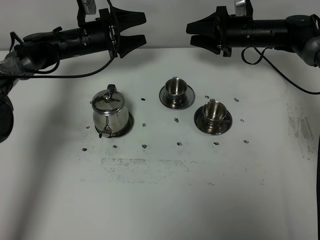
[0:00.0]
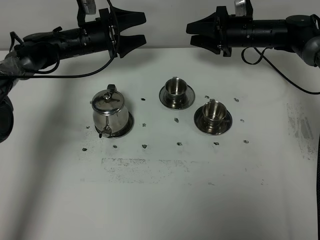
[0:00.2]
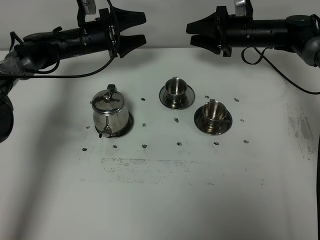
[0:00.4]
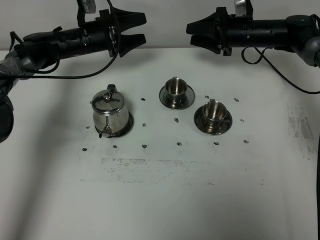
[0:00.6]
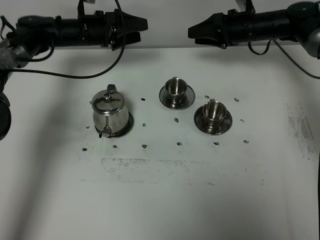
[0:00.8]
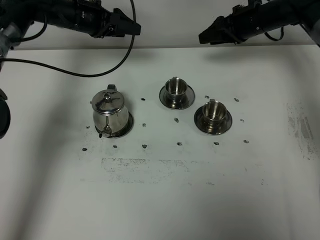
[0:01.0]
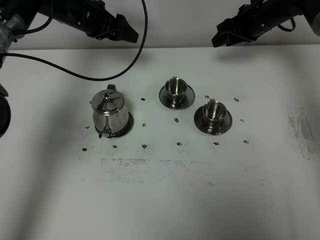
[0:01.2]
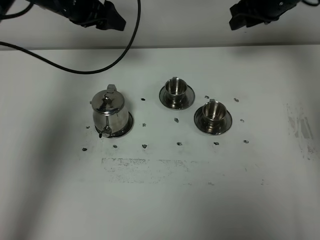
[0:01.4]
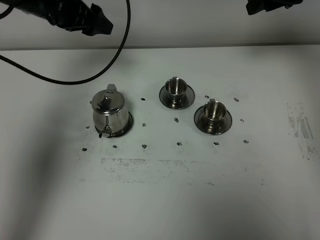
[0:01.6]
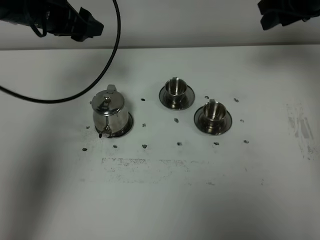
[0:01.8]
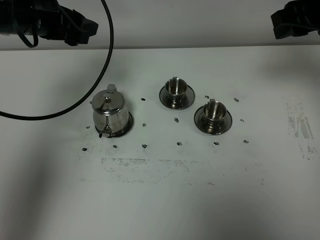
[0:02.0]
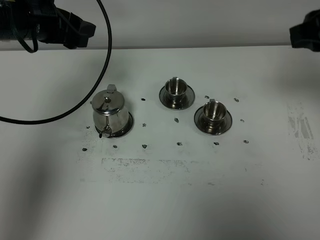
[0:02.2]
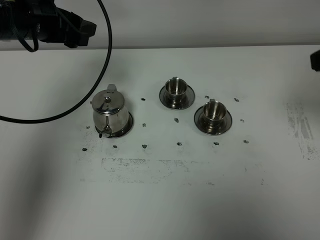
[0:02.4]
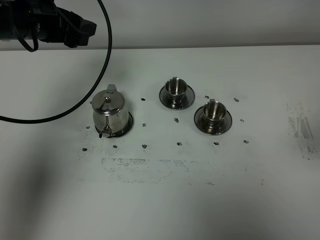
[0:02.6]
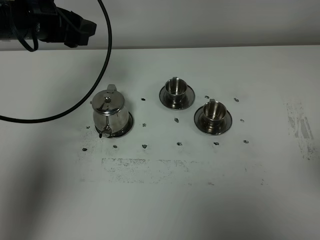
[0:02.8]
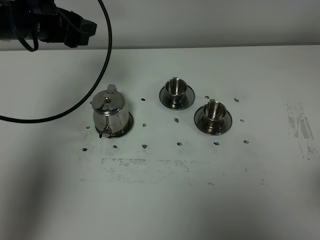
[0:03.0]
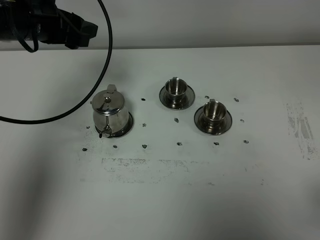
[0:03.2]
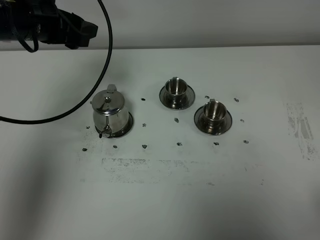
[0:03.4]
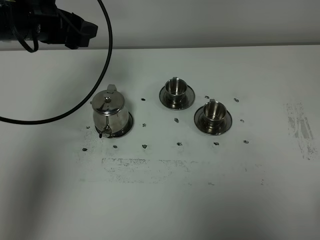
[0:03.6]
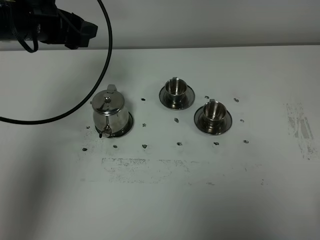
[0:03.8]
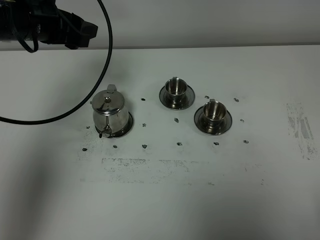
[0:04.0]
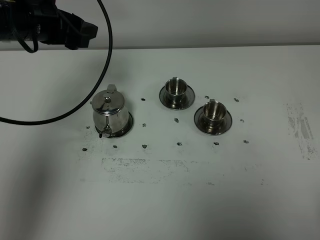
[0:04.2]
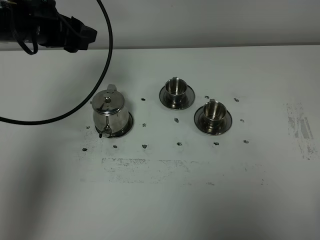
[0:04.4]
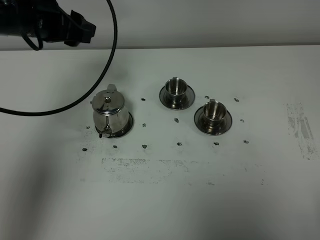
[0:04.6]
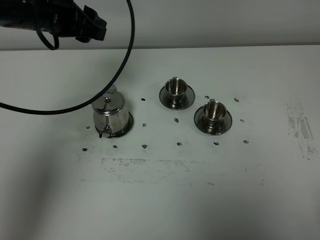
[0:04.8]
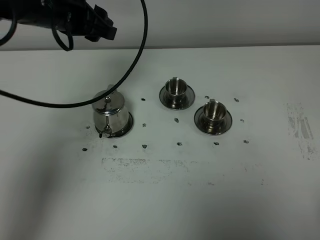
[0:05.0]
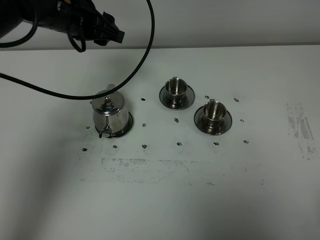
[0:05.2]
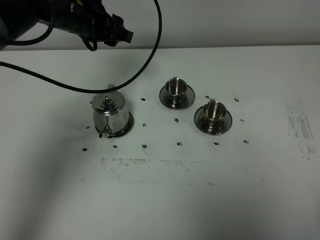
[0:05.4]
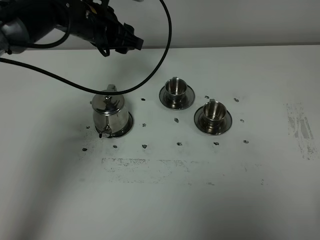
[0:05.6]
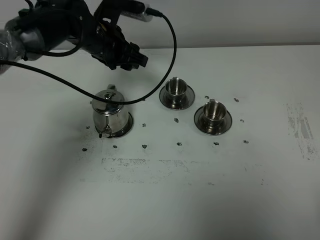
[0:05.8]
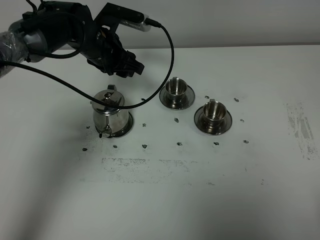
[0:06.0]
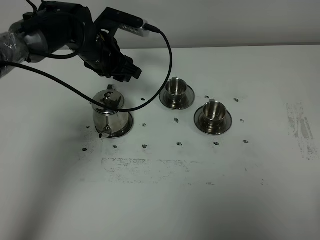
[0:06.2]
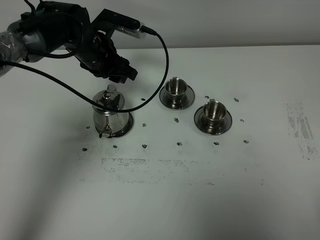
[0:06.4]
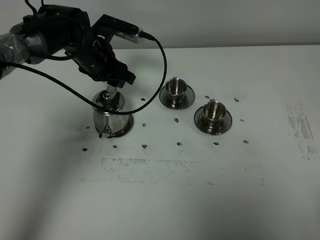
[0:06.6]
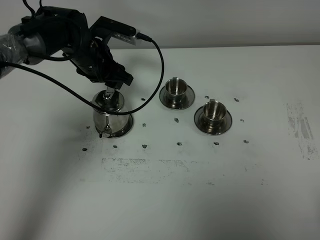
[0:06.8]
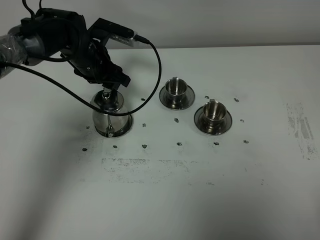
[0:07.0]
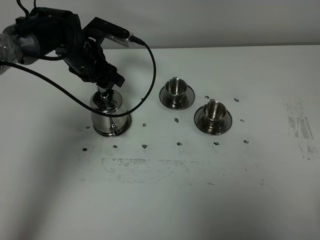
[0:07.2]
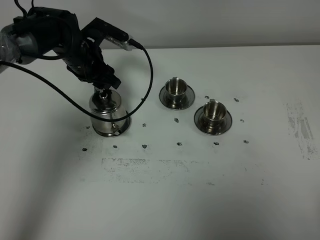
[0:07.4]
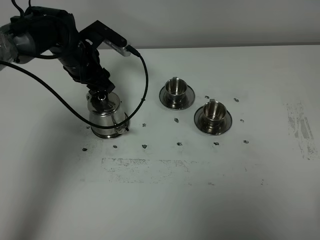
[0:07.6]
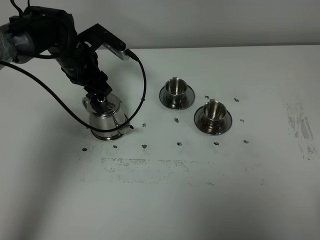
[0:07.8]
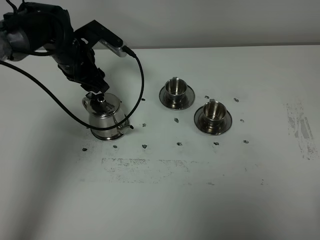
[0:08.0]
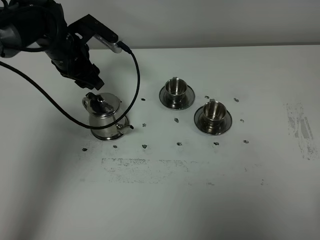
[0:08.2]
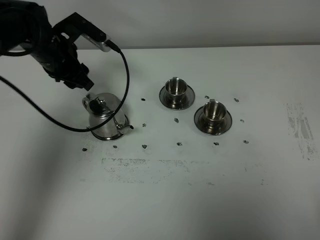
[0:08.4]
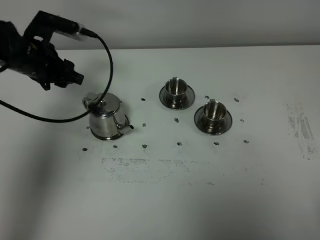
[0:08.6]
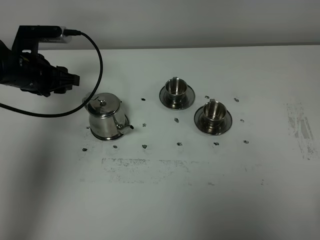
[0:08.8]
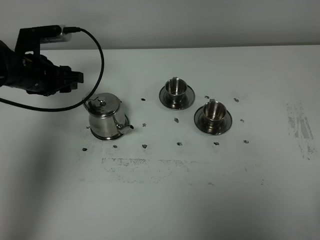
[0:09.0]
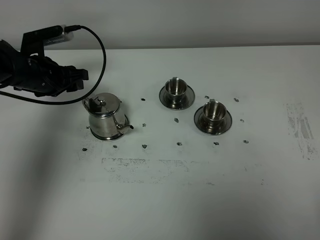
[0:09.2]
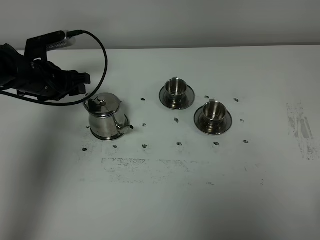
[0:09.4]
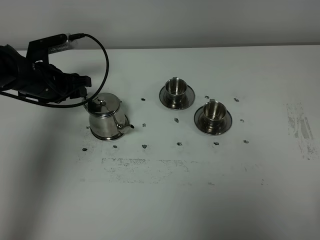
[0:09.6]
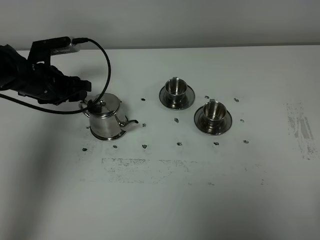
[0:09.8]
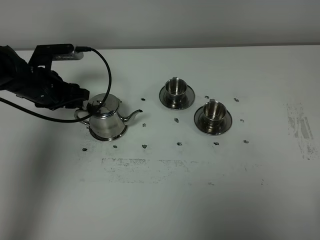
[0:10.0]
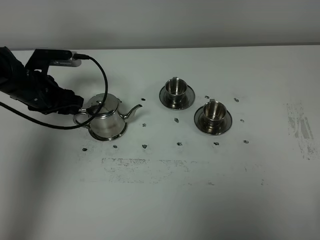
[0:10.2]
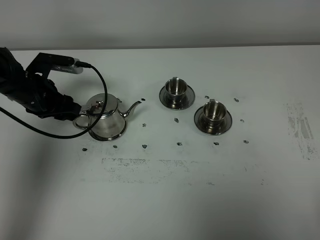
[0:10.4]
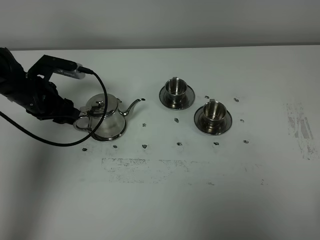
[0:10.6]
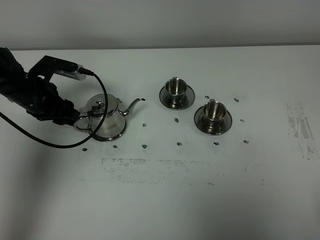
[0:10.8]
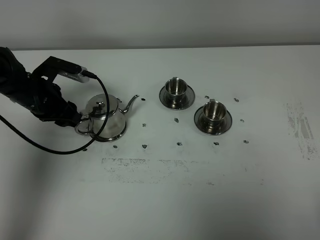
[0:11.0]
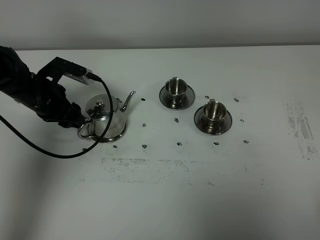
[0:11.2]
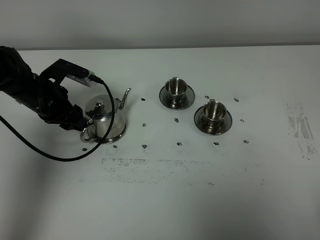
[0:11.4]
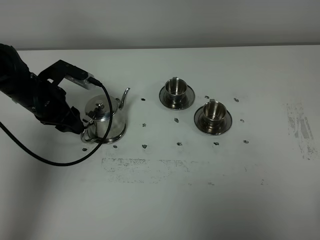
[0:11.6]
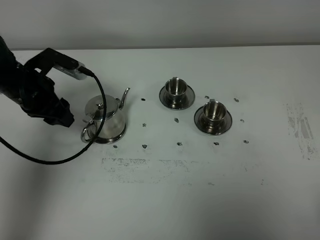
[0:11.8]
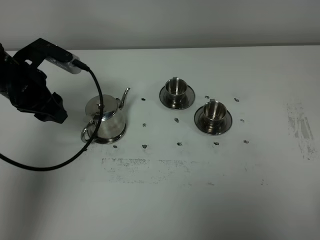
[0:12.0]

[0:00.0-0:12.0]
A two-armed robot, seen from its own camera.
Task of the whole recording: grasp the stainless steel teapot and pour the tea into the two stainless steel teacups one by one, put the stainless steel teapot back in its original place.
0:00.0 to 0:01.6: The two grippers go about 20 cm upward and backward.
0:01.6 to 0:03.0: The right gripper shifts approximately 40 cm backward, and closes, while the left gripper is displaced backward by approximately 5 cm.
0:04.4 to 0:06.0: The left gripper moves downward, to the right and forward, roughly 15 cm.
0:06.0 to 0:07.6: The left gripper shifts by some 5 cm.
0:07.6 to 0:09.0: The left gripper moves to the left and backward, approximately 10 cm.
0:10.4 to 0:12.0: The left gripper is displaced upward by roughly 10 cm.

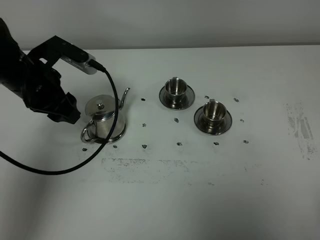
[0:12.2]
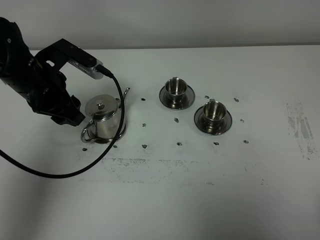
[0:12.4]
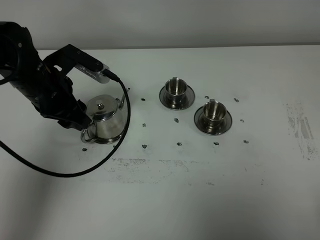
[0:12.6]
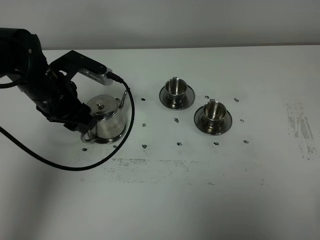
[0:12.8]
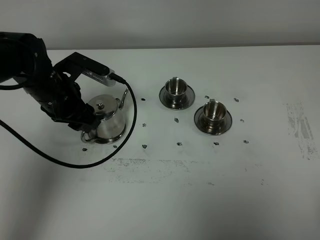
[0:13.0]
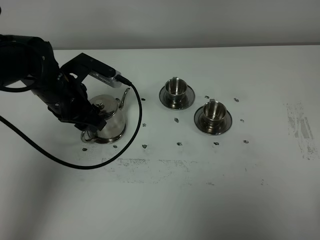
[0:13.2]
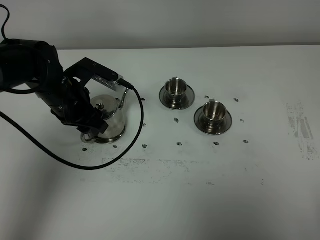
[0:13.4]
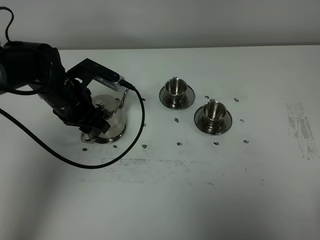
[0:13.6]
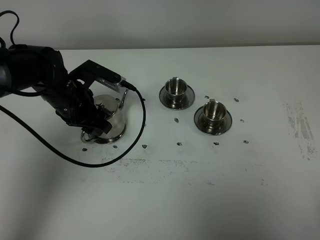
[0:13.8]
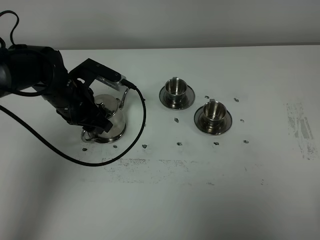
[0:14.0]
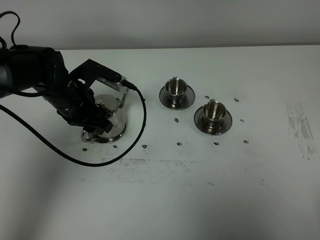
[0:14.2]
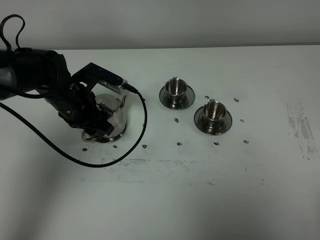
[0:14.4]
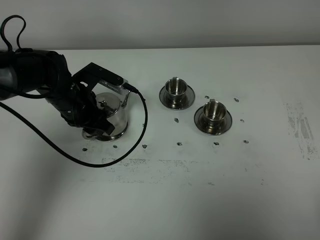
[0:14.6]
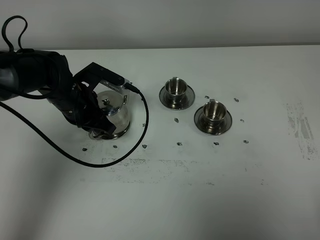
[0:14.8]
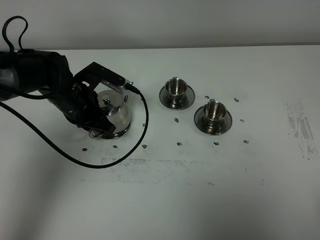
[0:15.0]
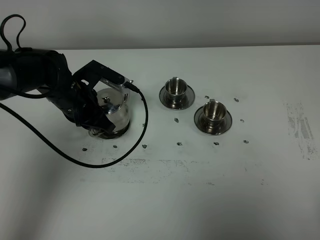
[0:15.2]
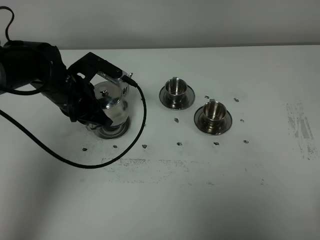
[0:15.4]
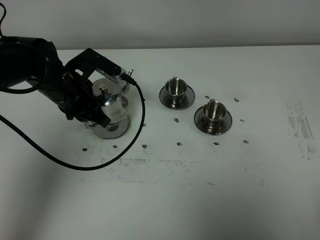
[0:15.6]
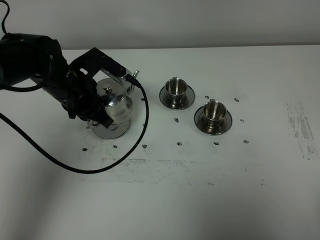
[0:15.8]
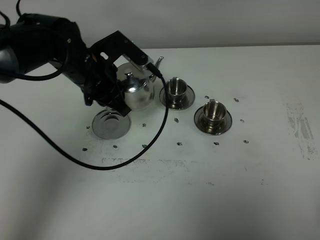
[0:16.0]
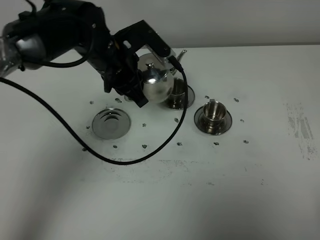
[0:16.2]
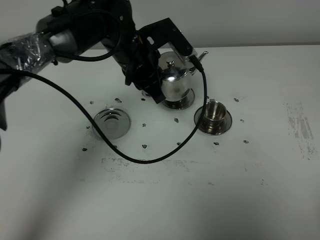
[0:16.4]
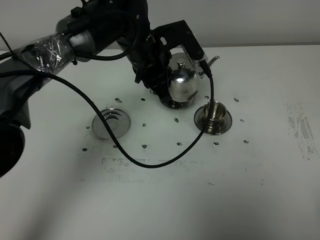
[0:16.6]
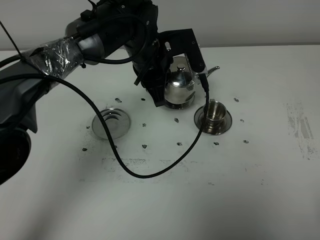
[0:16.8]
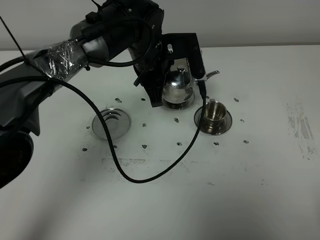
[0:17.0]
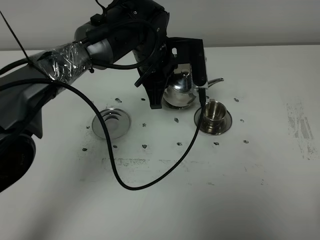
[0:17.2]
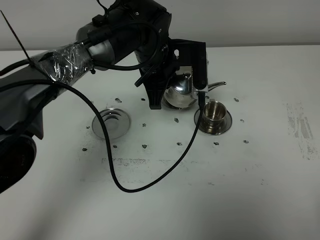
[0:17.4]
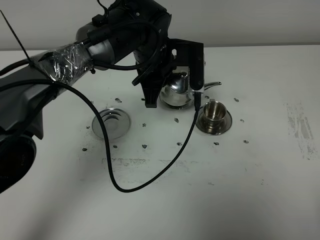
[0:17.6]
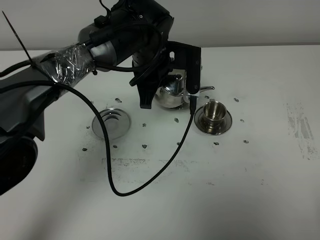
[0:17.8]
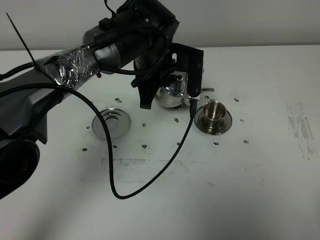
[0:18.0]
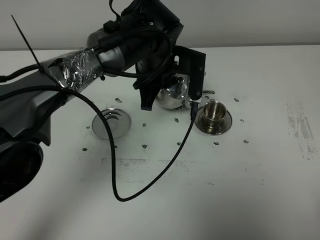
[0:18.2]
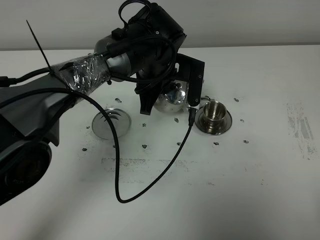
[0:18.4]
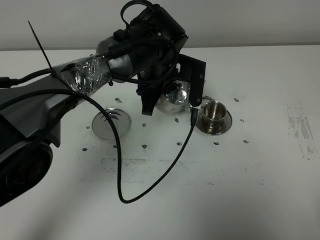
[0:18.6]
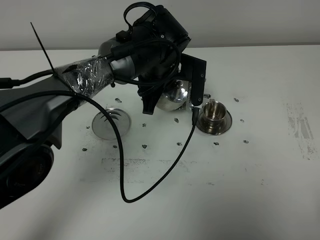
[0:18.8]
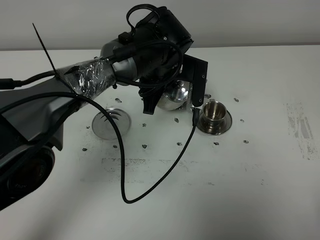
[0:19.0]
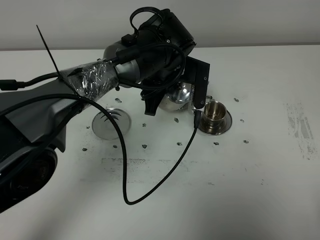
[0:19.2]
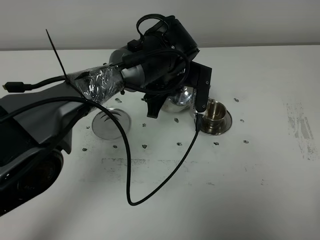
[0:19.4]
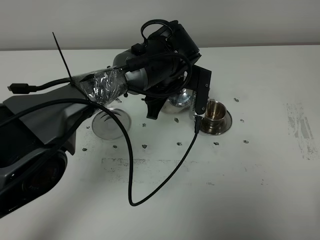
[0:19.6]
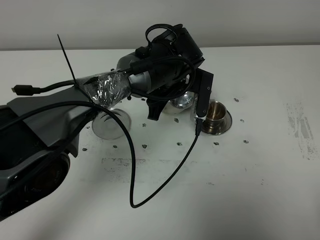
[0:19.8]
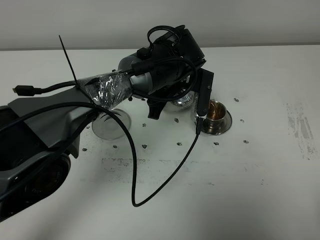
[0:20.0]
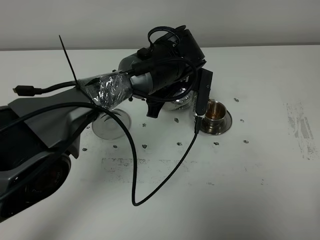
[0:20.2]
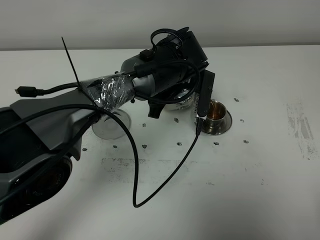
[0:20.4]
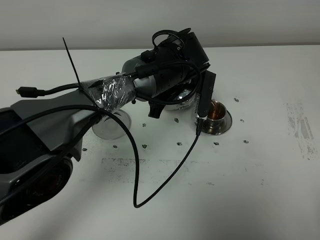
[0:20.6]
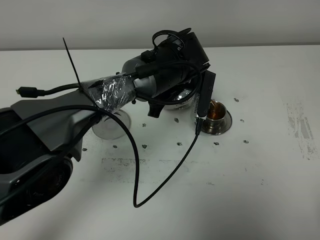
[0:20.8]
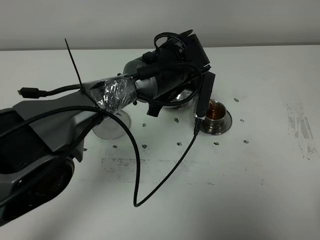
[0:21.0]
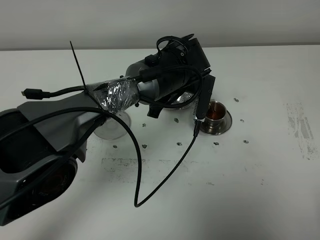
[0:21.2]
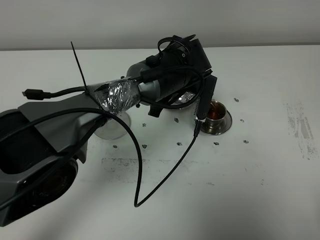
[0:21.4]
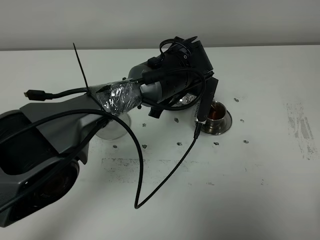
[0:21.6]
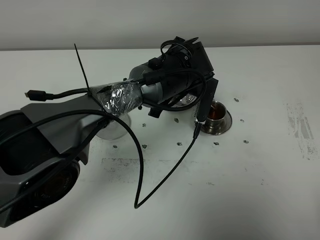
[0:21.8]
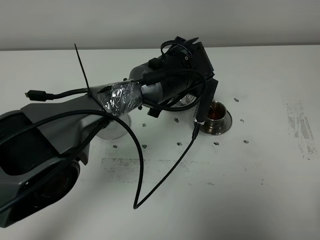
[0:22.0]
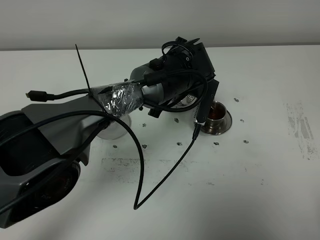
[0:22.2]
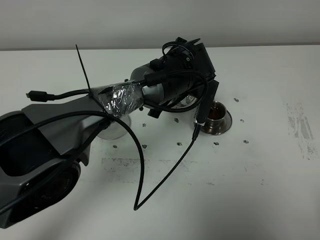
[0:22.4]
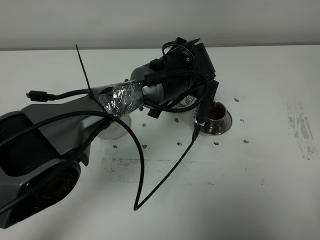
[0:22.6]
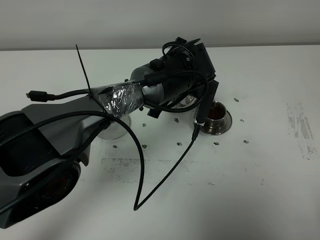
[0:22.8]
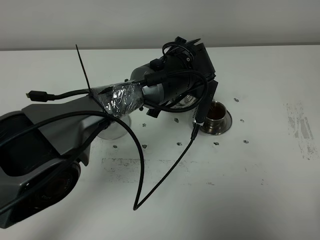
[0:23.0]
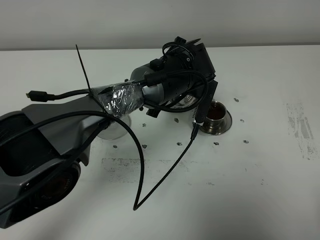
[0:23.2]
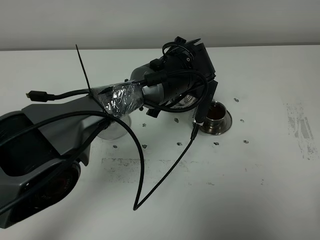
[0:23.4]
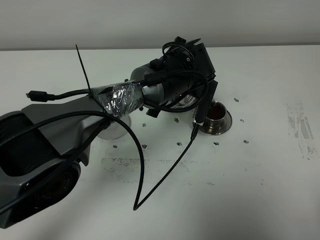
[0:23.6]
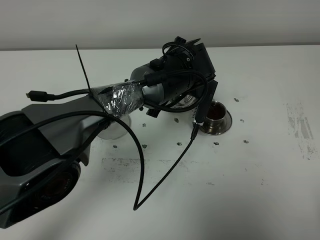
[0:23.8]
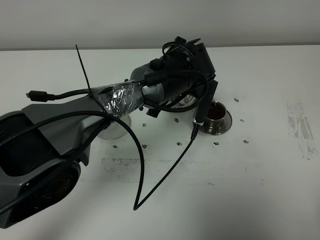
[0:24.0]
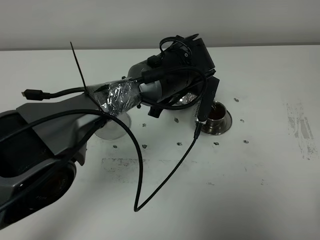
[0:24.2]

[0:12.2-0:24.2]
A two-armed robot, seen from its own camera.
Task of the whole recording: grasp the stainless steel teapot and pour the tea into the two stainless steel teacups one by one, put the stainless steel teapot back in its original place.
Step, 0:12.2 to 0:15.2: Pick up the teapot with the left gripper.
0:12.2 to 0:13.8: The left gripper is displaced downward by about 5 cm.
0:13.8 to 0:15.2: The left gripper closes its fingers.
0:15.2 to 0:16.6: The left gripper travels to the right and upward by approximately 15 cm.
0:19.8 to 0:22.6: The grippers move only a little.
0:22.6 to 0:24.2: Both grippers stay about where they are.
